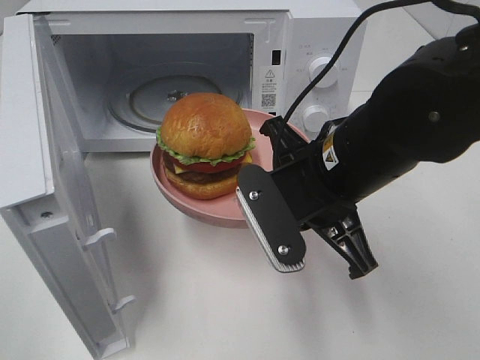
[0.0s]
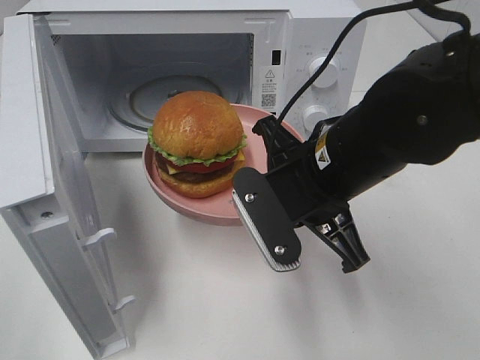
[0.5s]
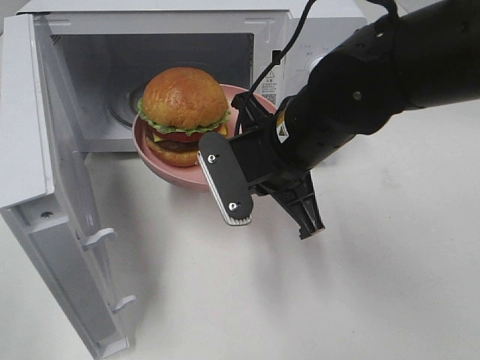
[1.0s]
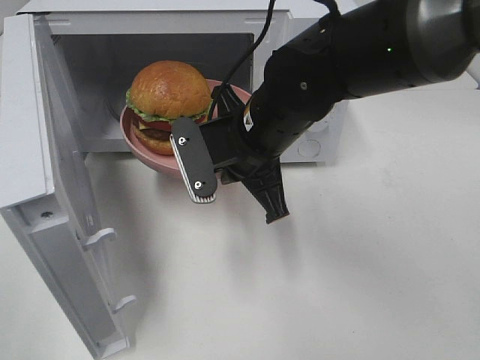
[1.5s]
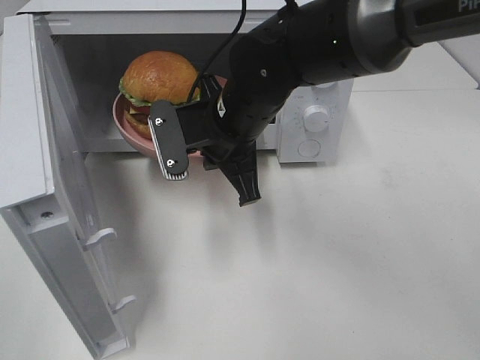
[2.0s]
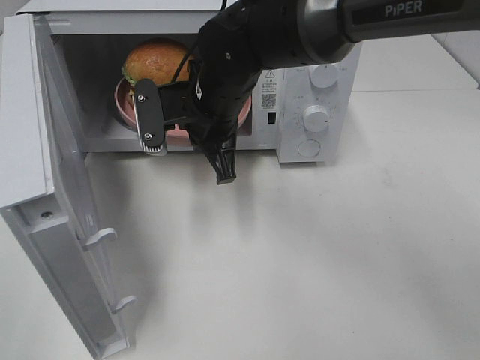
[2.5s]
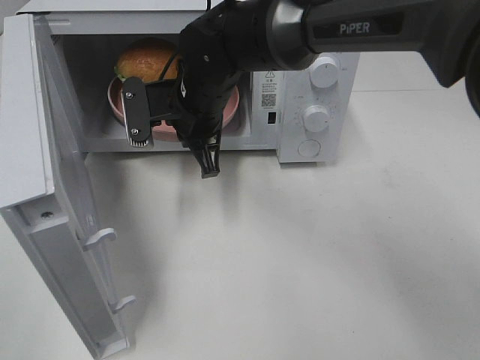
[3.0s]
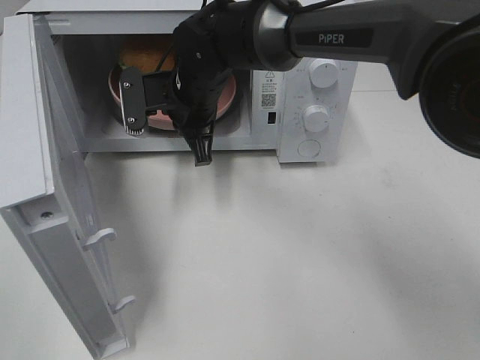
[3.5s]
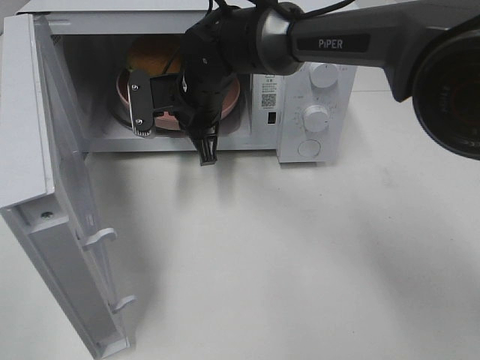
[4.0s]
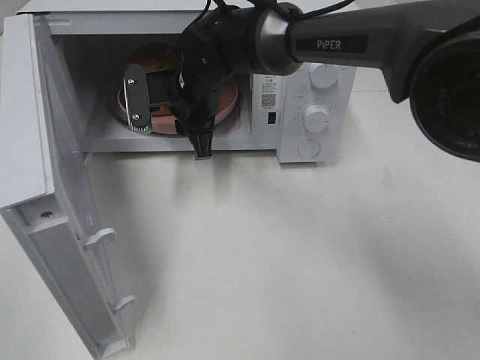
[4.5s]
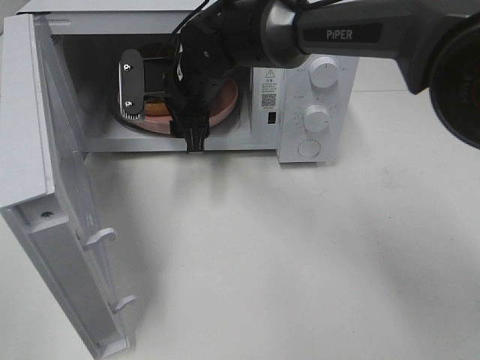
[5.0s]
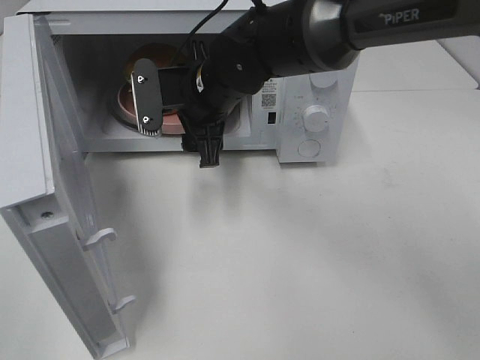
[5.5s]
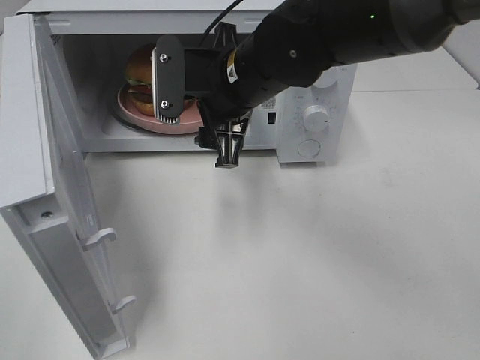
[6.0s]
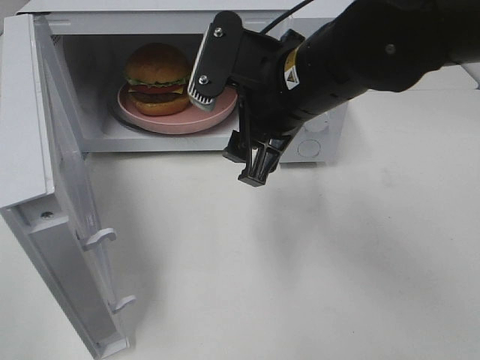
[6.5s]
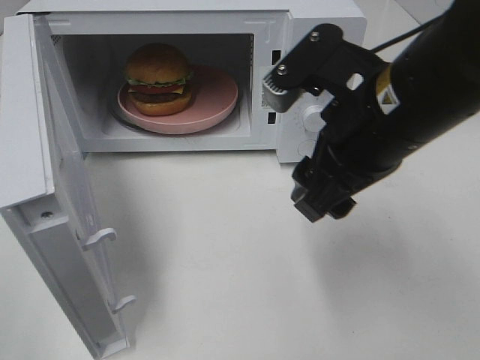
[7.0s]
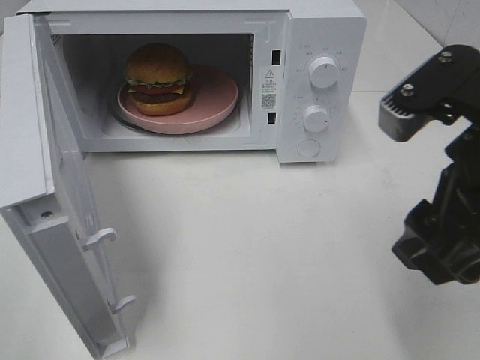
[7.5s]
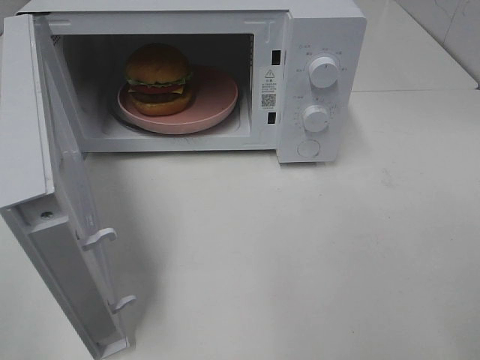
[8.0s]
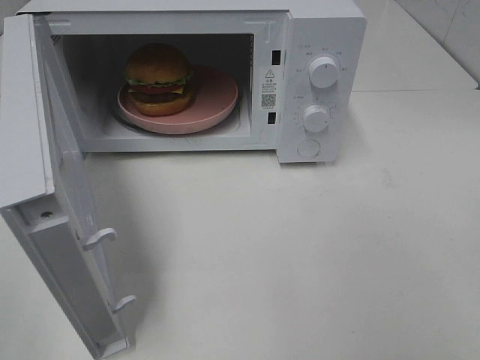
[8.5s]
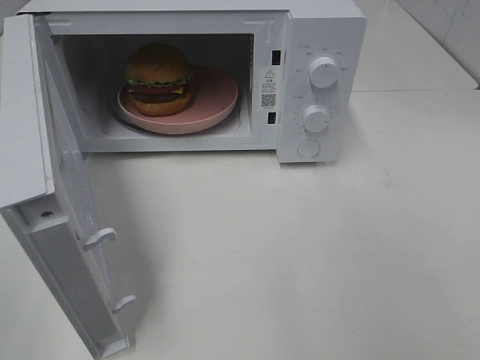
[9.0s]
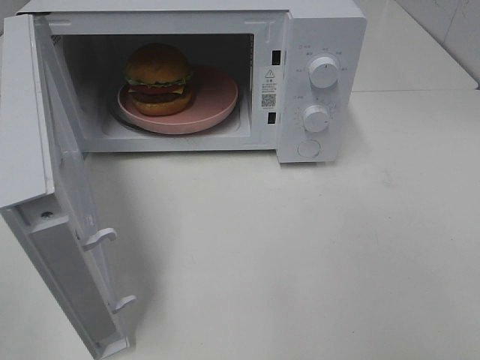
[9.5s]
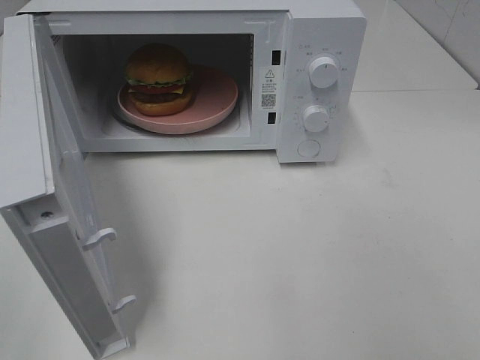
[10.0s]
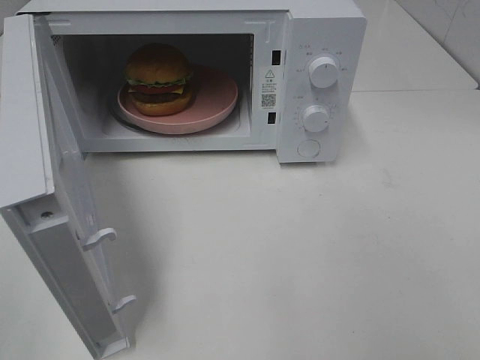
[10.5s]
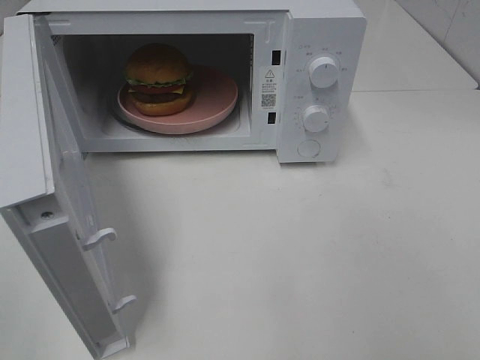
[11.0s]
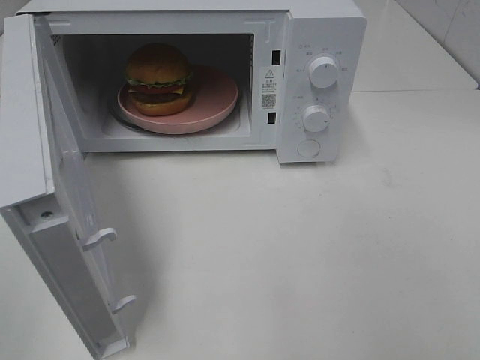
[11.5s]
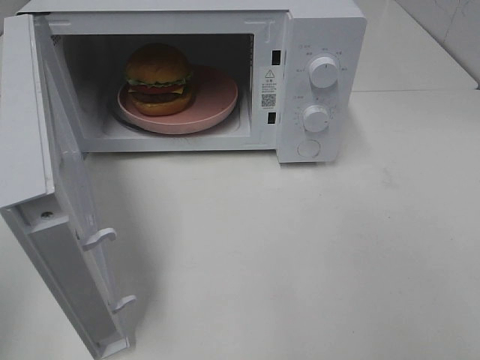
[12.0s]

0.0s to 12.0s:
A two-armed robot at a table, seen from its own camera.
Task of the whole recording: Heat the burger.
Step, 0.0s to 4.5s: Right hand: place the plate in the microwave.
0.0s to 2.0s: The right gripper shifts roughly 15 cm forward and to the left.
2.0s to 4.0s: The right gripper moves forward, roughly 10 cm.
4.0s to 6.0s: The right gripper goes some 10 cm backward, upward and to the right, and opens up.
6.0s to 8.0s: The right gripper travels backward and to the right by some 30 cm.

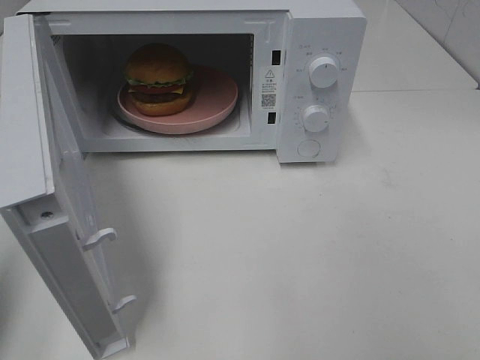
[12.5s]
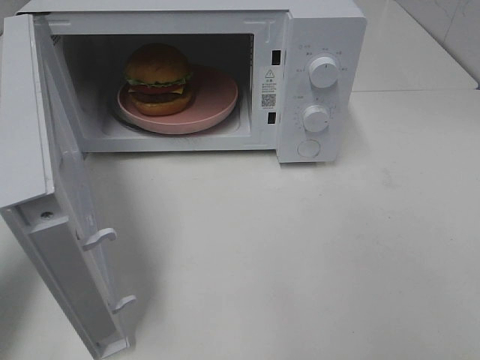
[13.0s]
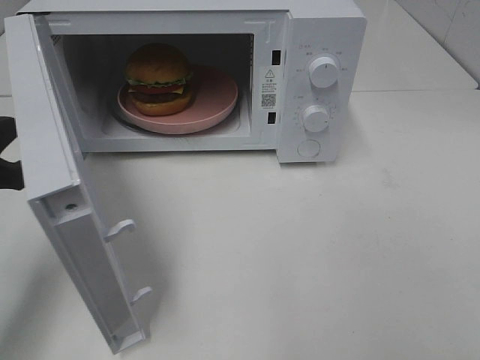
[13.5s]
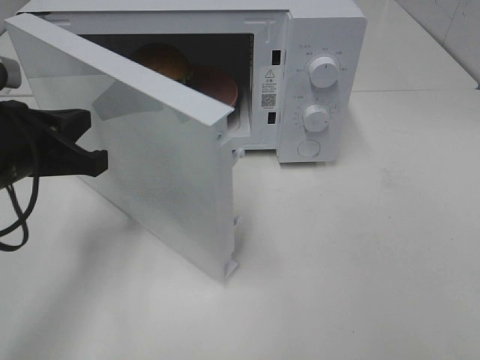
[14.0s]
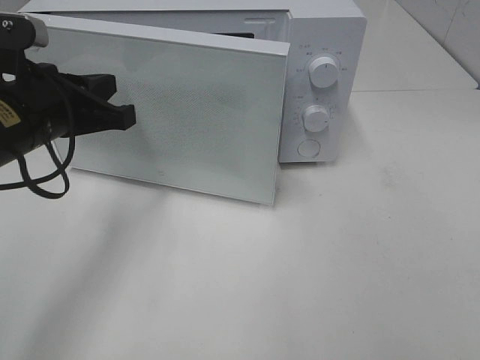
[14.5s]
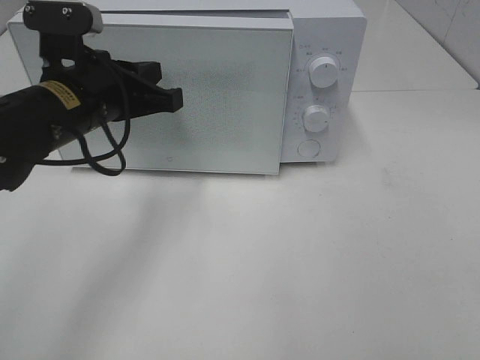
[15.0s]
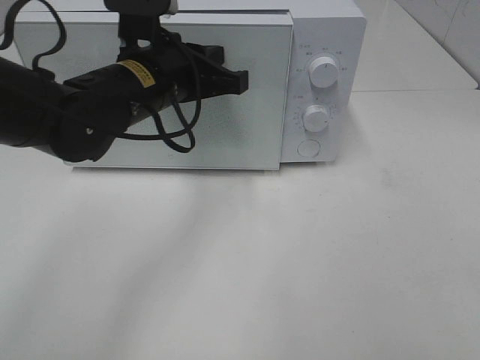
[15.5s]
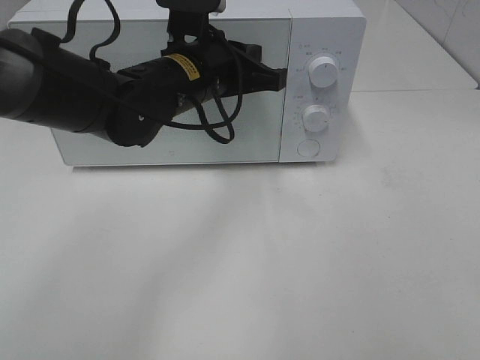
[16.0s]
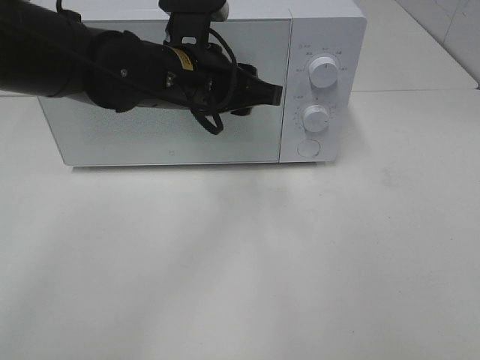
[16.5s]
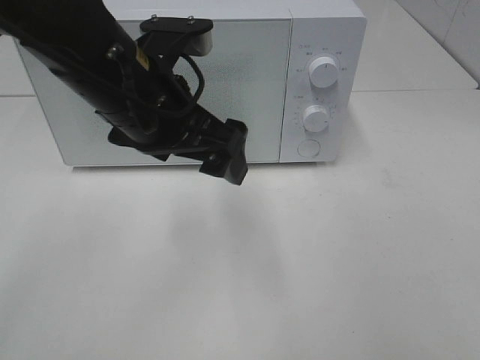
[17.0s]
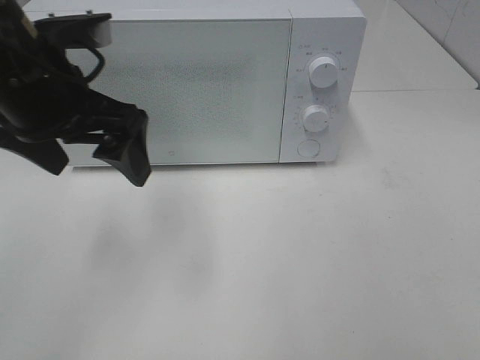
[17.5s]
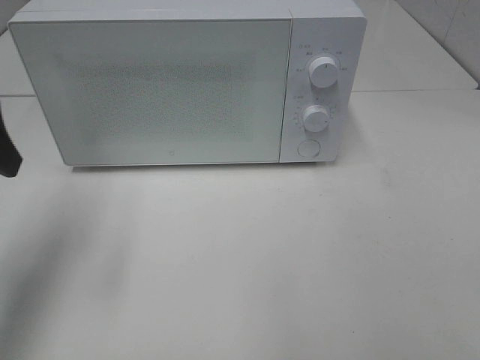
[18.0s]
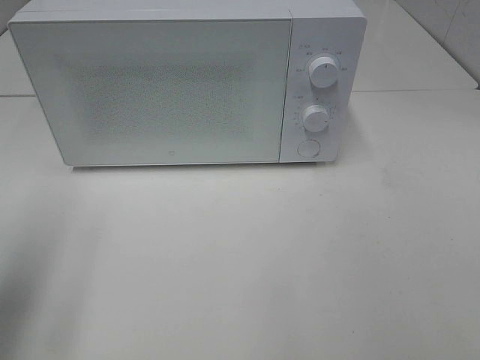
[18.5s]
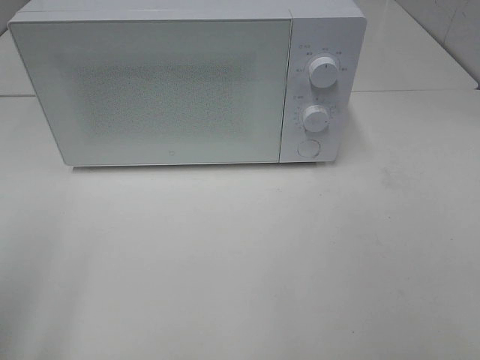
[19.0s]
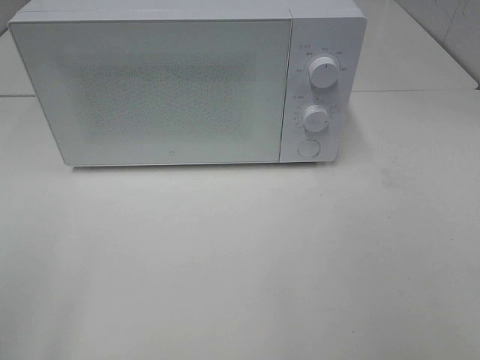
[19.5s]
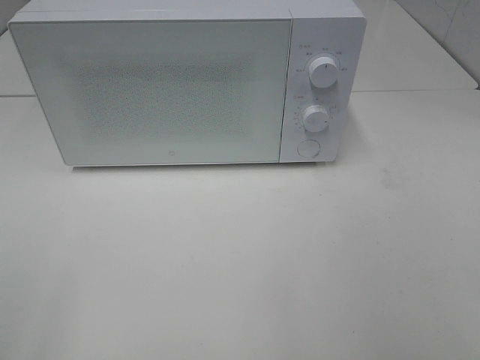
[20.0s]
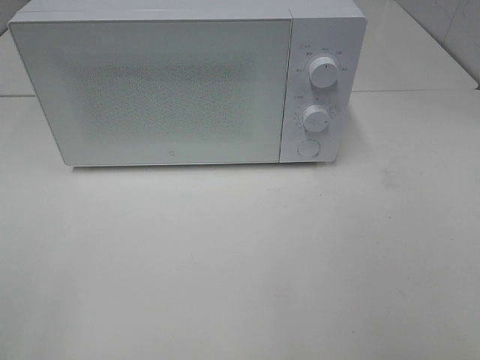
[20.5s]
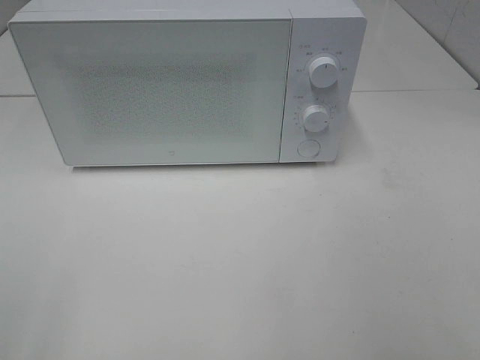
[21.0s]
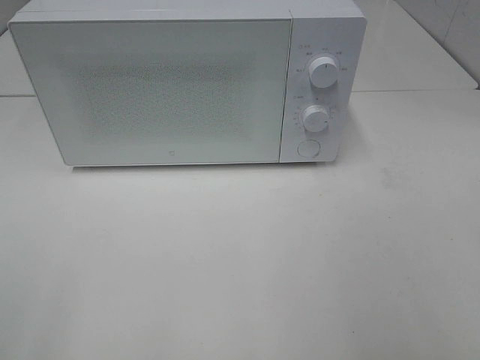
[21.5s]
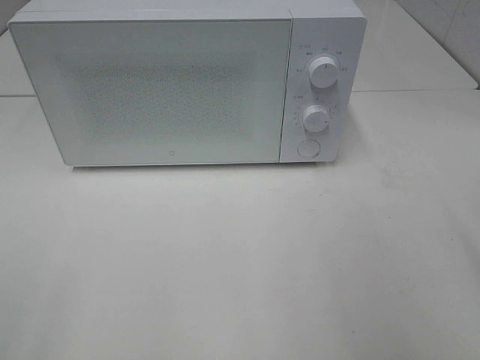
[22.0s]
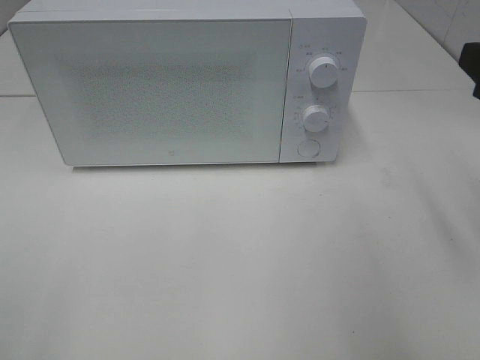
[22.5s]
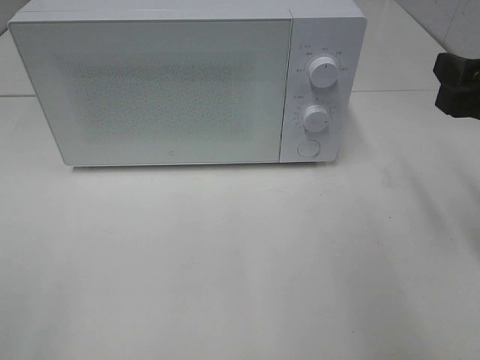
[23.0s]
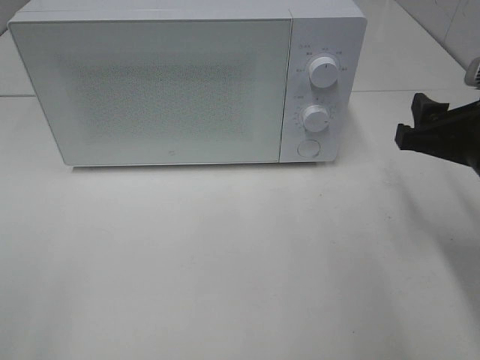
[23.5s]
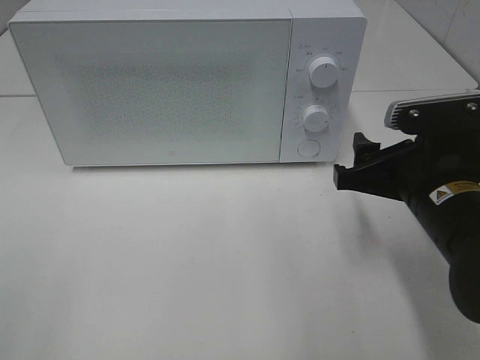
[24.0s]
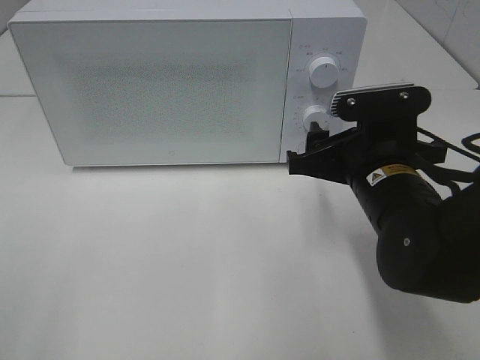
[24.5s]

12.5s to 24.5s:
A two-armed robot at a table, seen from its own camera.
Task of the whole recording: Heat the burger.
Step, 12.5s to 16.0s: Left hand: close the microwave door.
12.5s to 14.5s: The left gripper moves forward and to the right, approximately 20 cm.
14.5s to 16.5s: The left gripper heads to the right, covering about 15 cm, and opens its fingers.
16.5s to 18.5s: The left gripper heads to the left and backward, covering some 30 cm, and opens up.
18.5s to 20.5s: The left gripper moves backward, some 15 cm.
22.5s to 24.5s: The right gripper travels downward, to the left and forward by roughly 20 cm.

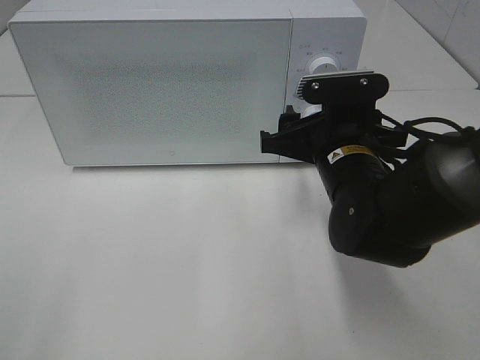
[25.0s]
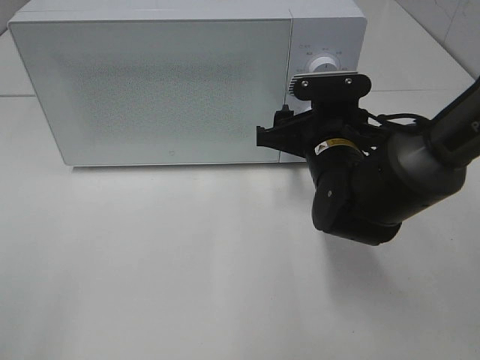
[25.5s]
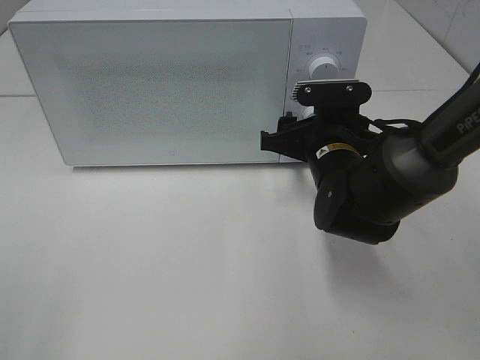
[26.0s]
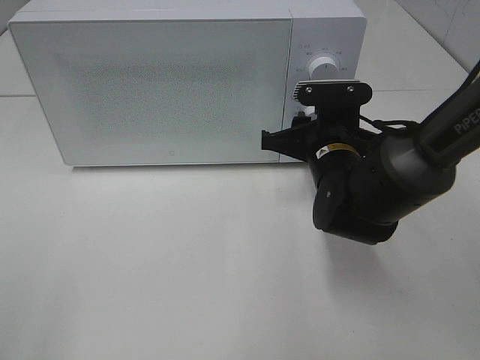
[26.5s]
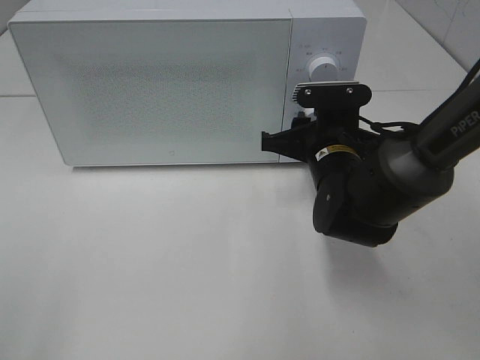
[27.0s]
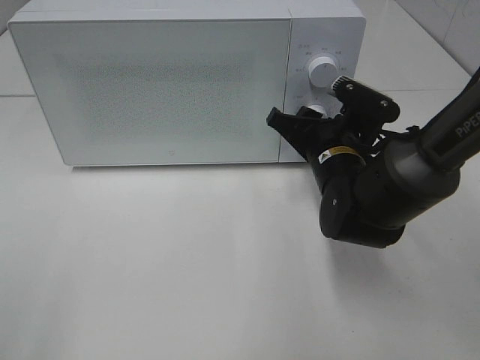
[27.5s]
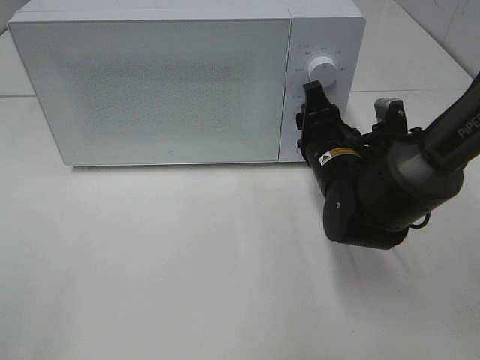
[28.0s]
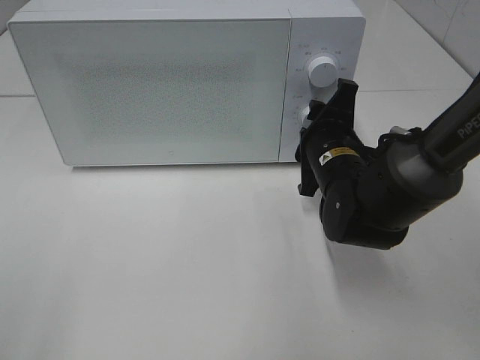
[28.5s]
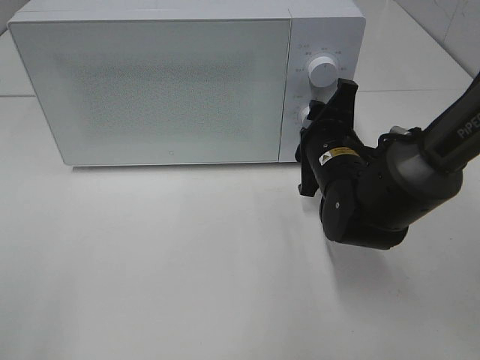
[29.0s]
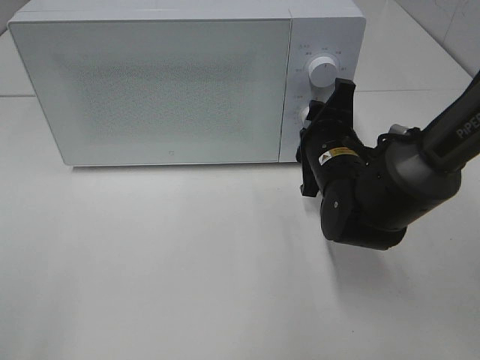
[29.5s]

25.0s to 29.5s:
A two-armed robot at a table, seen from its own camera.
Task of the whole recording: Heat the burger.
25.0s to 27.0s: The right gripper changes place by some 5 cm.
